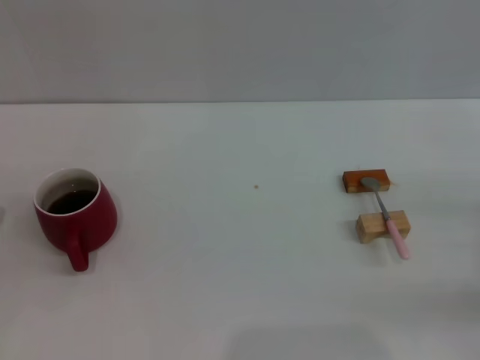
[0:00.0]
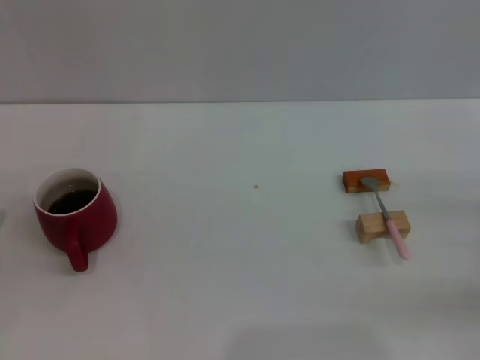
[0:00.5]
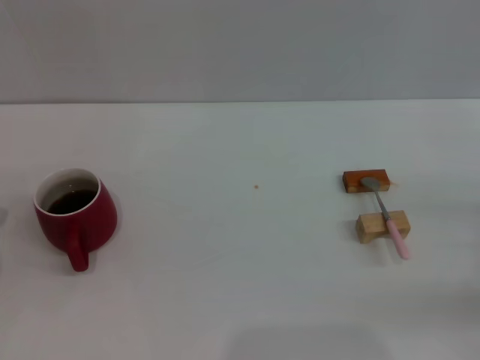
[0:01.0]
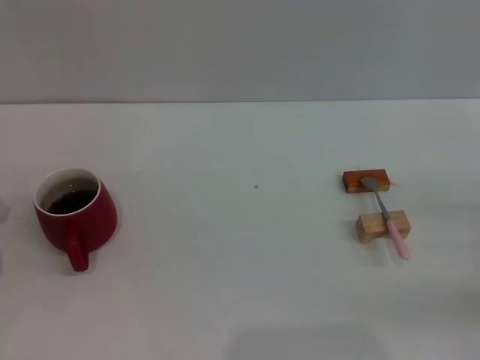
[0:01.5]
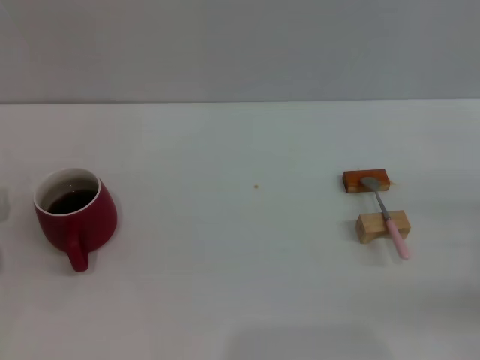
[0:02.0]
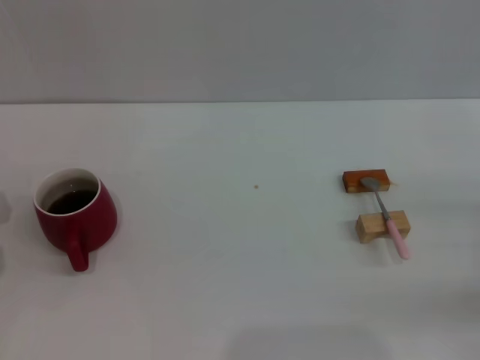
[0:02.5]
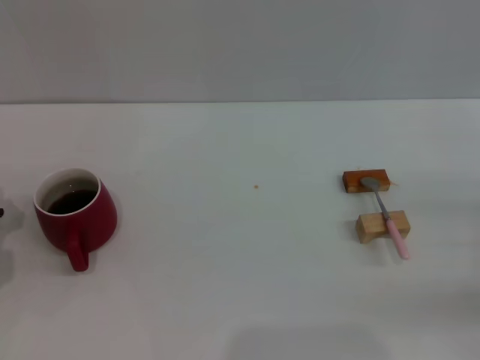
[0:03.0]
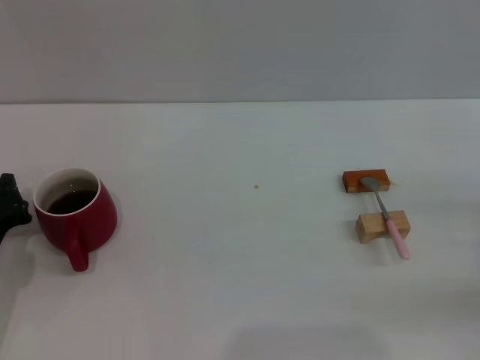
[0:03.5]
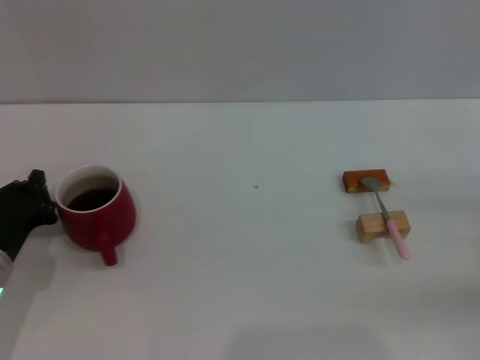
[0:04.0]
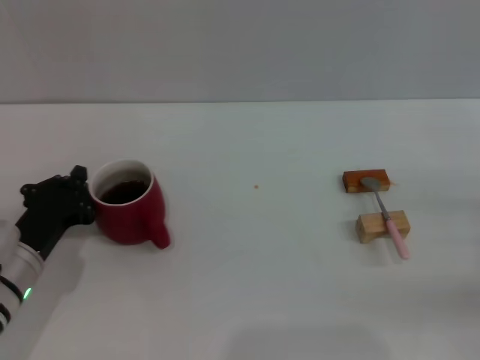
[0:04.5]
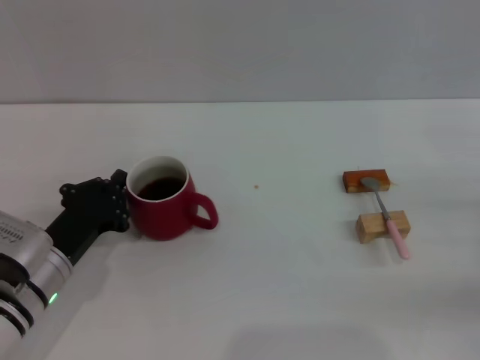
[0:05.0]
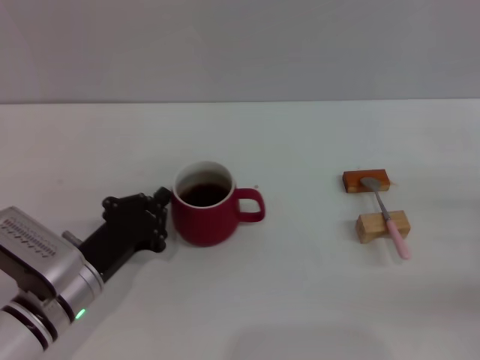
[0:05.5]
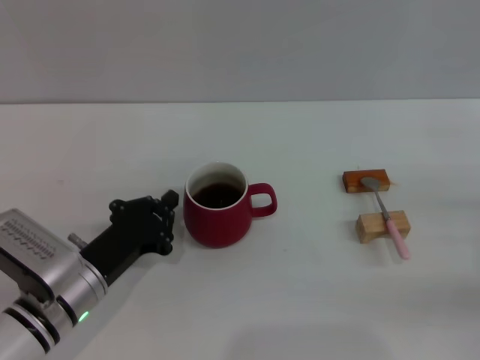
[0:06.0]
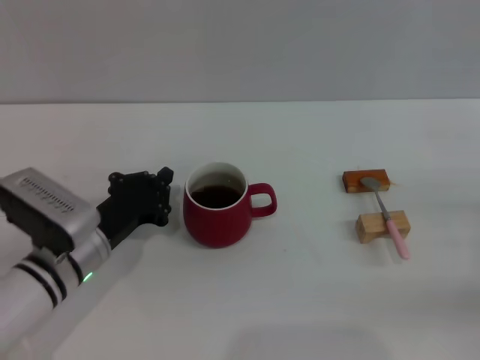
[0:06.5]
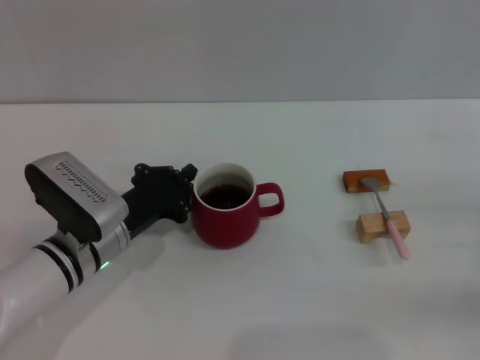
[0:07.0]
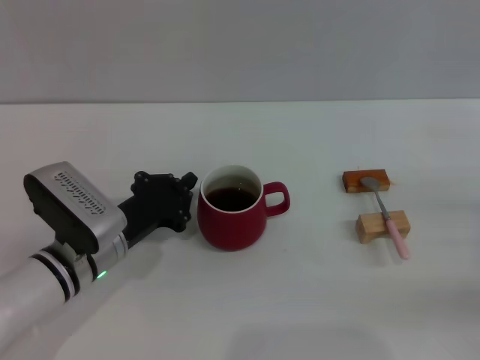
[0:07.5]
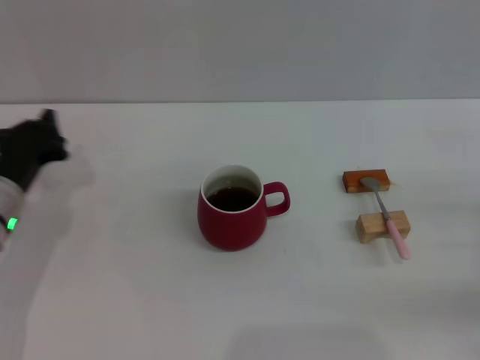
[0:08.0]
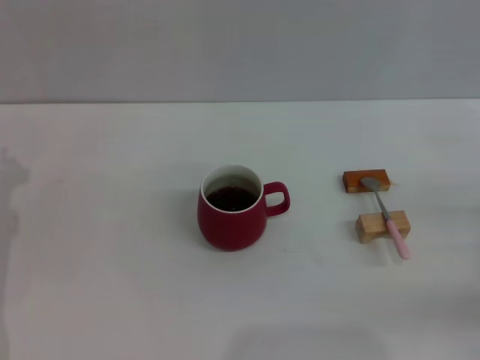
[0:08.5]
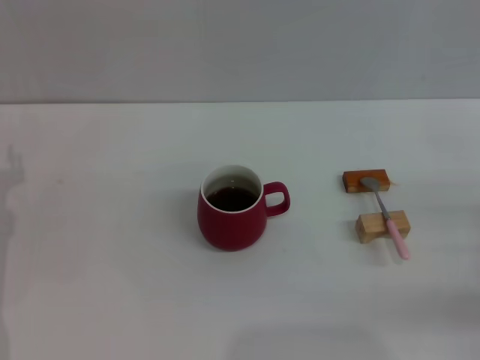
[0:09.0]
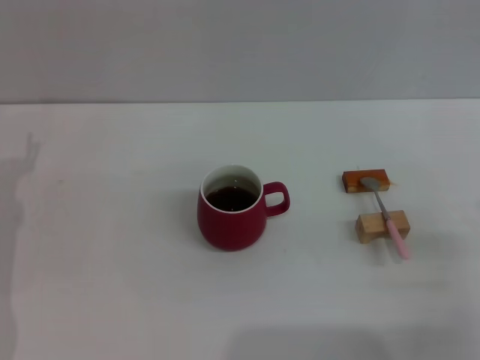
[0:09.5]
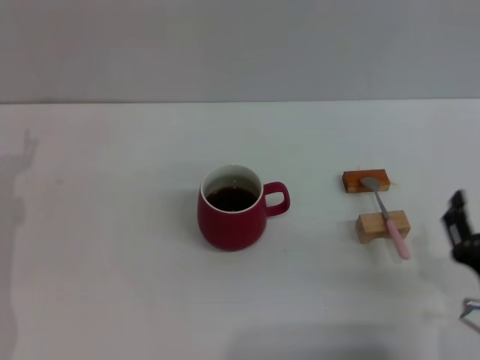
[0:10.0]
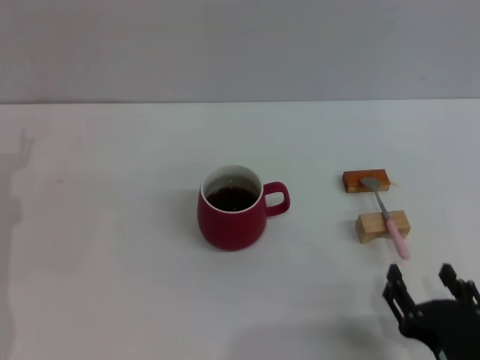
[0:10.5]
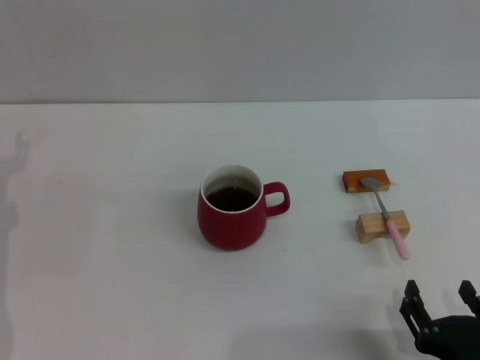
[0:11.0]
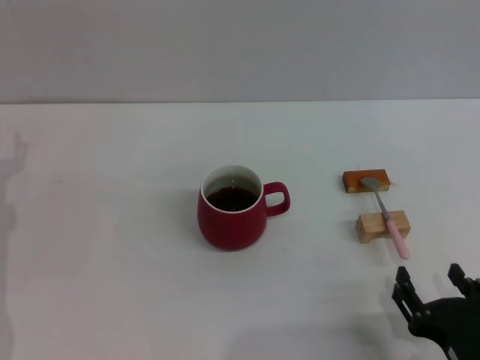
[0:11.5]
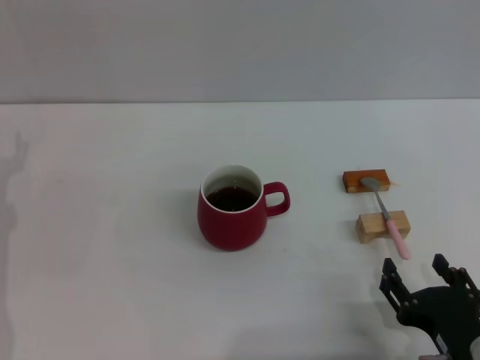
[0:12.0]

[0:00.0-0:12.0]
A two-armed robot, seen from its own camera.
Task of the whole recording: Move the red cup to the center, lift the pink spoon, stir it three times in the cup, and put the spoon into the cup.
Step, 0:00.0 to 0:07.5: Move the cup with coffee to the center of view with the left gripper.
0:04.0 to 0:06.0: The left gripper moves to the right, approximately 10 cm.
0:06.0 to 0:08.0: The left gripper shifts approximately 10 cm to the left and forward.
0:08.0 to 0:10.0: The right gripper shifts some 20 cm to the left and backward, while the left gripper opens up.

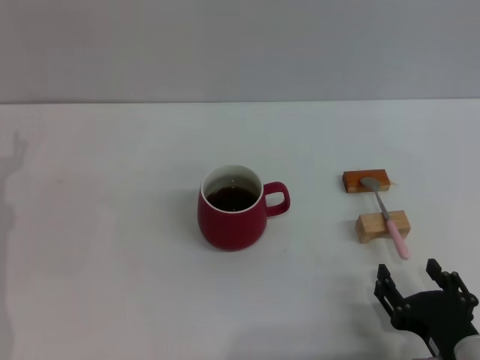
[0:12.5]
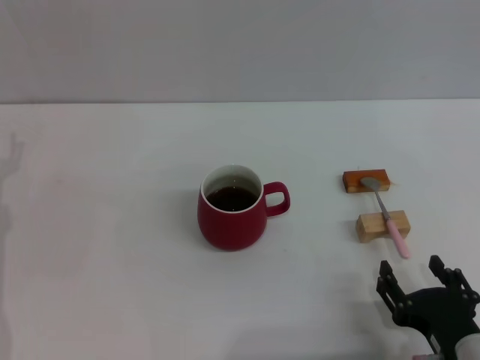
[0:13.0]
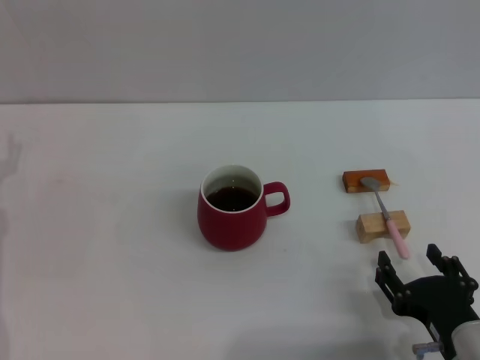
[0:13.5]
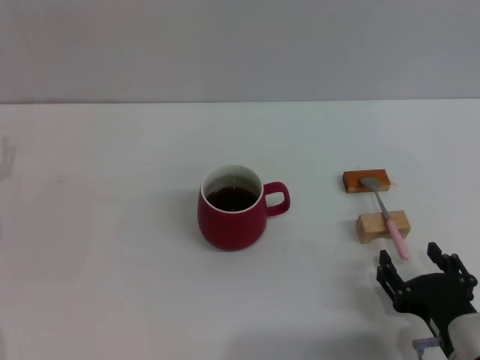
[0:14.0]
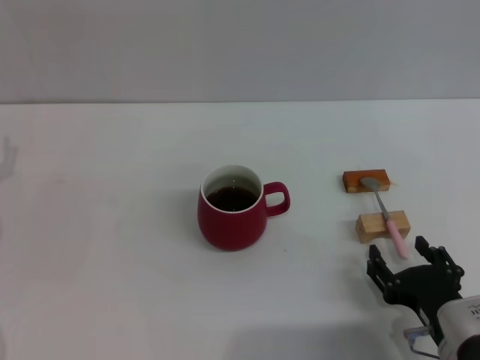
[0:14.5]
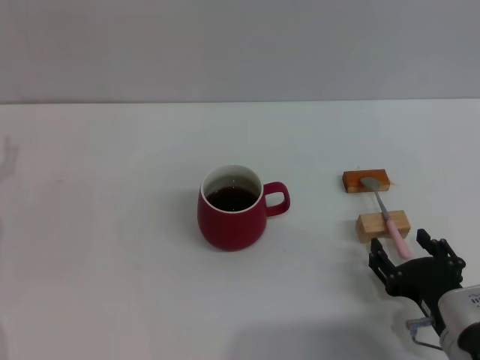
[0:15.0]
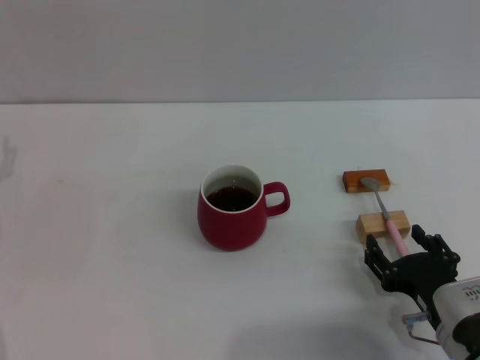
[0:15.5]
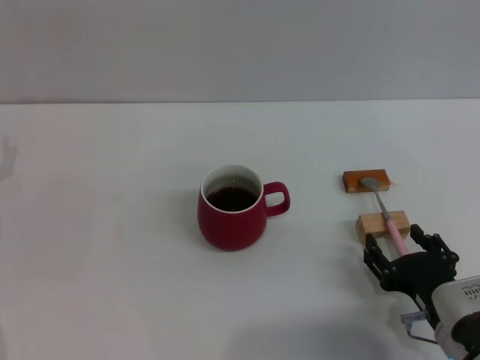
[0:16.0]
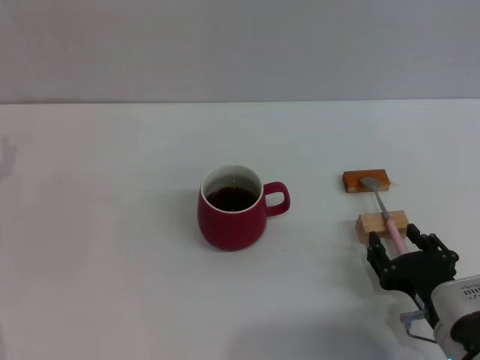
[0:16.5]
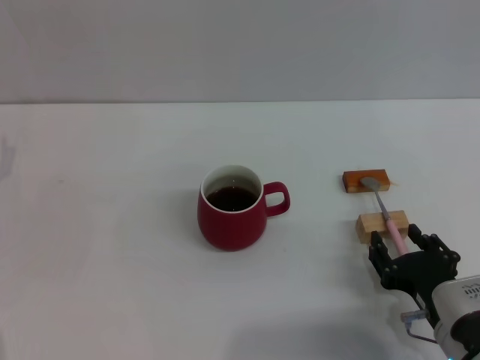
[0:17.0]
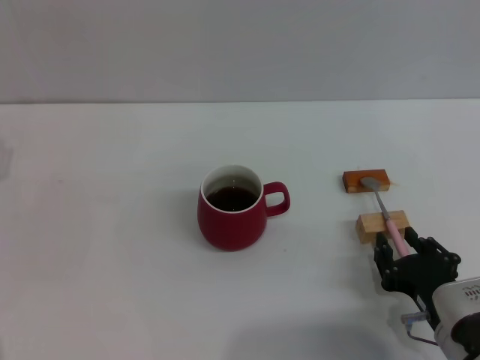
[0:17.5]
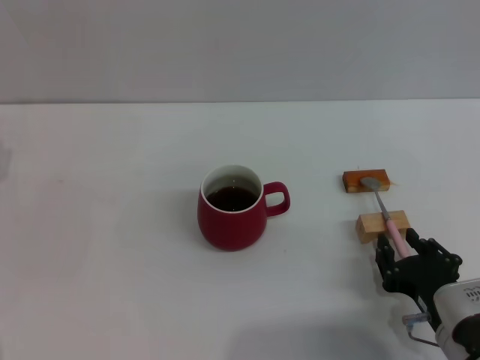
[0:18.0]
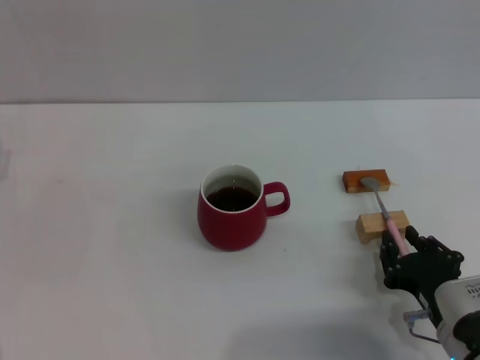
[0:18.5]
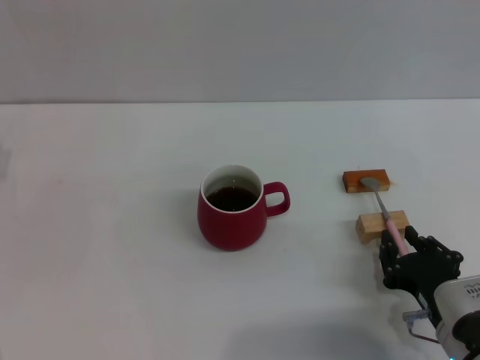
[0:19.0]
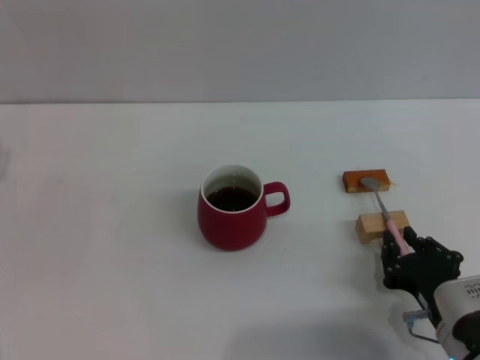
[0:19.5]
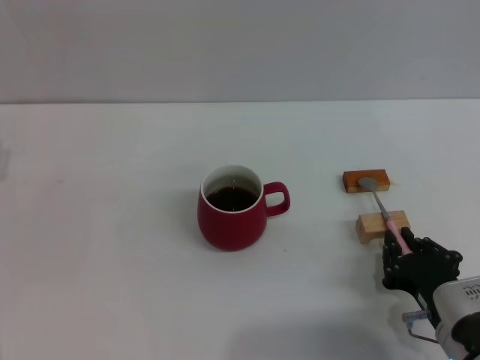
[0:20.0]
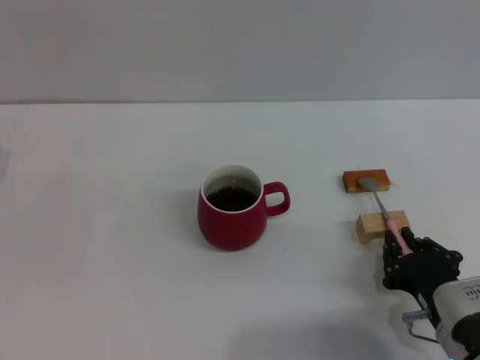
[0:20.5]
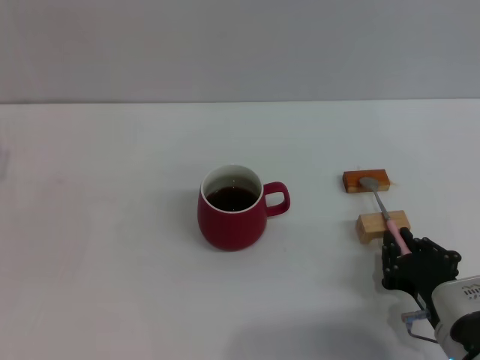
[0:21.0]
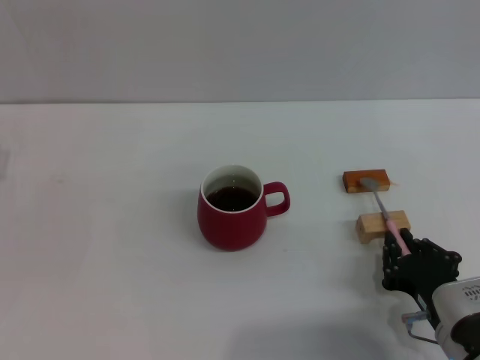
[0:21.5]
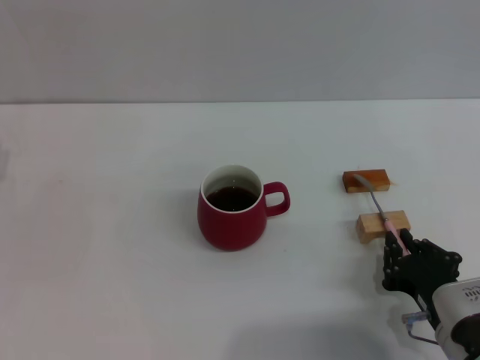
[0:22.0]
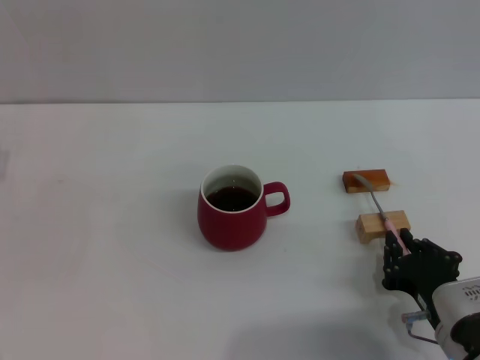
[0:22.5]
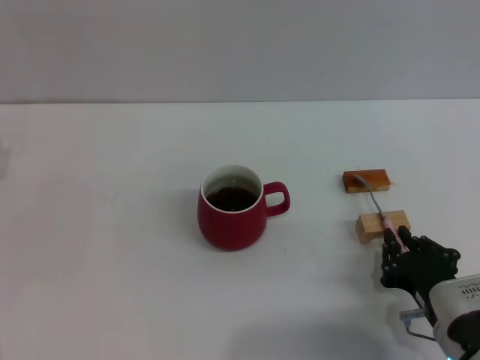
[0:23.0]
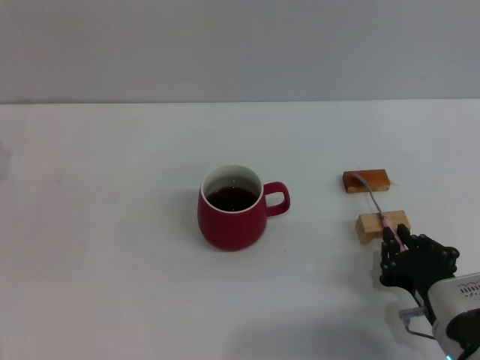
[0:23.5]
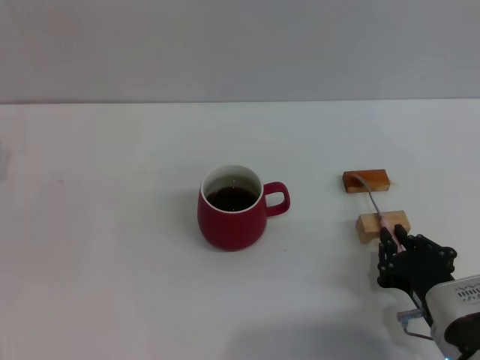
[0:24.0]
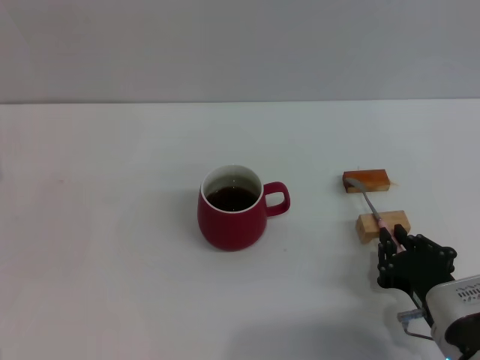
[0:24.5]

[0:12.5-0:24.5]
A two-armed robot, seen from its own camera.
Task of the whole recording: Move the red cup to the center, lift the pink spoon, stir it three times in the cup, and put the spoon into the cup.
0:12.5 to 0:16.5: There are only small adjustments of the grippers.
0:16.5 to 0:18.5: The right gripper closes.
0:18.5 to 0:24.5: The two grippers keep their place.

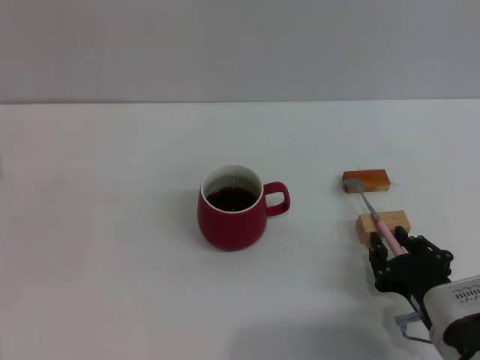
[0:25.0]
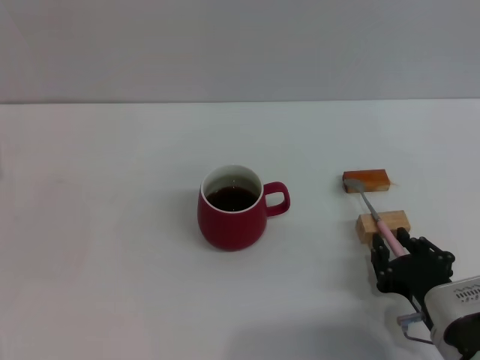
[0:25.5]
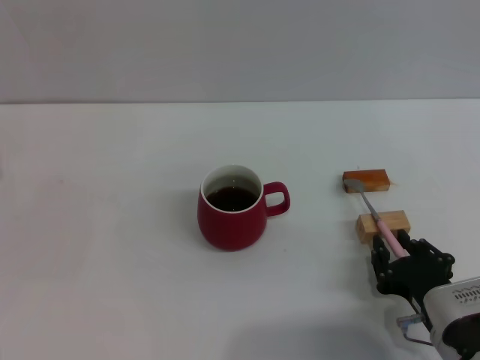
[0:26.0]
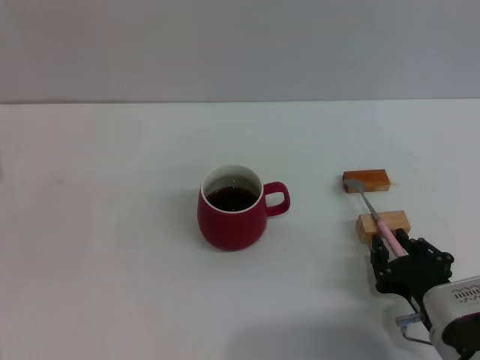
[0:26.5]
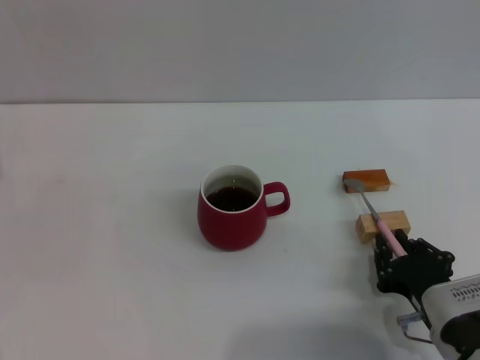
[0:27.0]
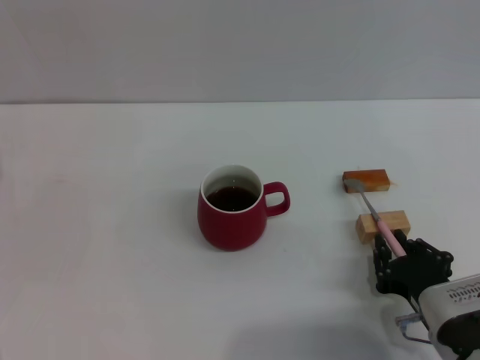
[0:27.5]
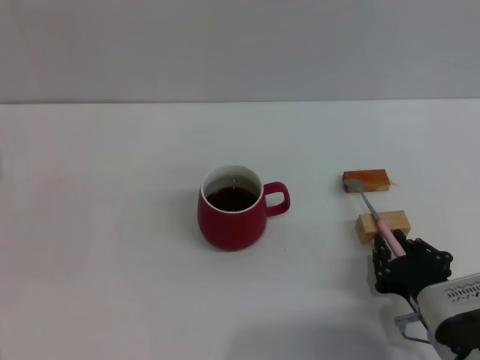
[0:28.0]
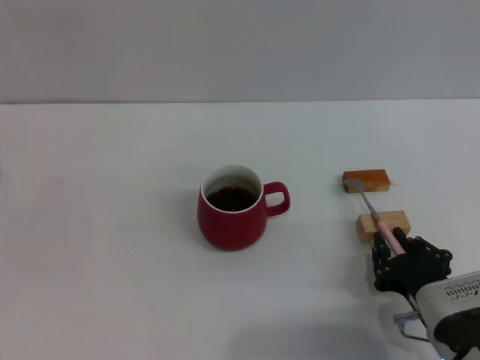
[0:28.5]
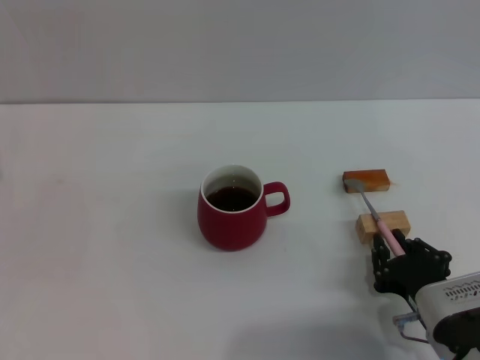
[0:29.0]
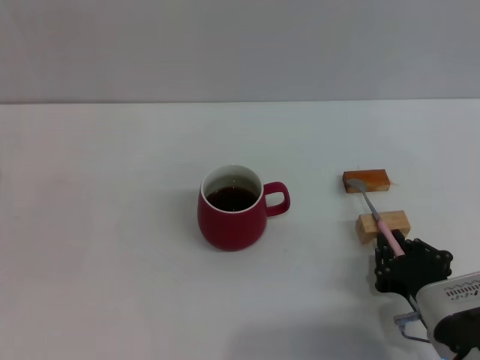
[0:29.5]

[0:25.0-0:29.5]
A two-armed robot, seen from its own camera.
Task of the whole recording: Move the red cup to the center, lift the pink spoon, stir it three times in the cup, and put the spoon into the cup.
0:25.0 to 0:29.5: Neither gripper changes place.
